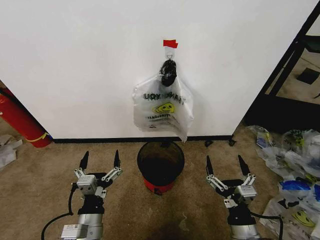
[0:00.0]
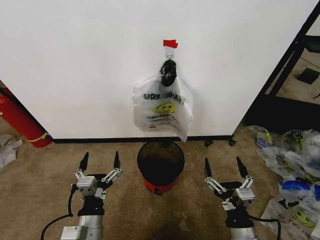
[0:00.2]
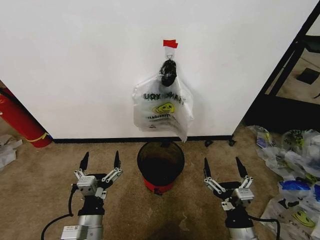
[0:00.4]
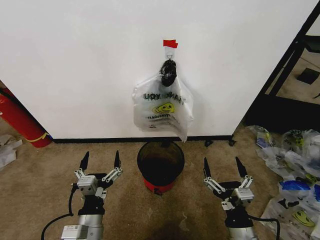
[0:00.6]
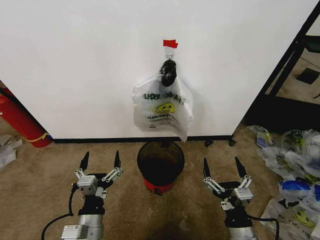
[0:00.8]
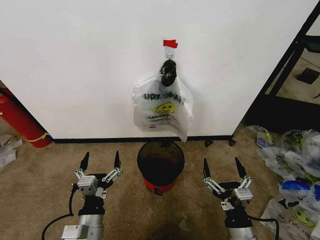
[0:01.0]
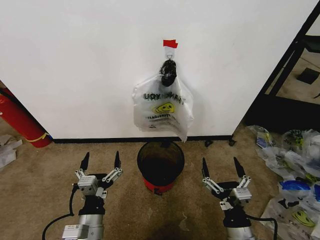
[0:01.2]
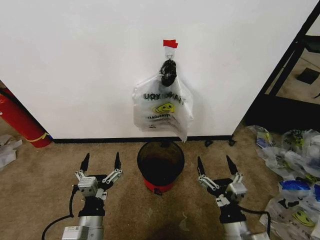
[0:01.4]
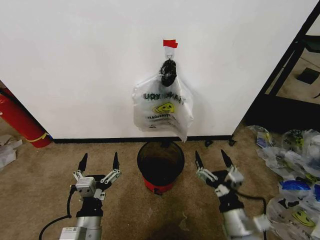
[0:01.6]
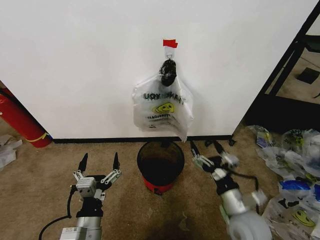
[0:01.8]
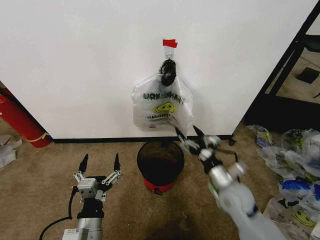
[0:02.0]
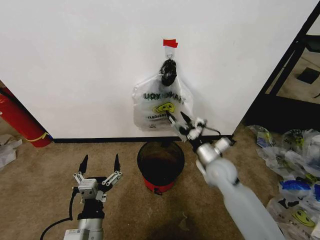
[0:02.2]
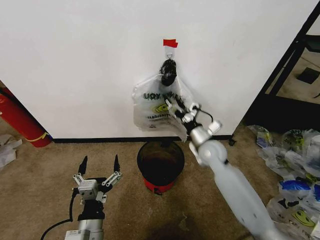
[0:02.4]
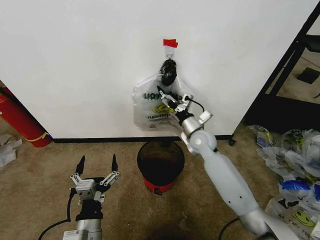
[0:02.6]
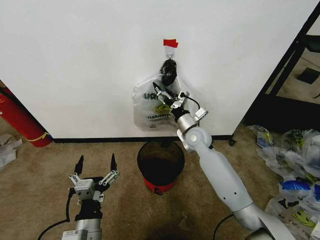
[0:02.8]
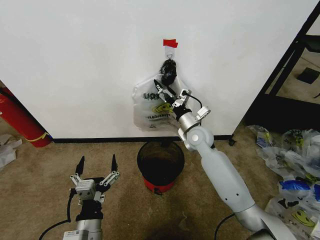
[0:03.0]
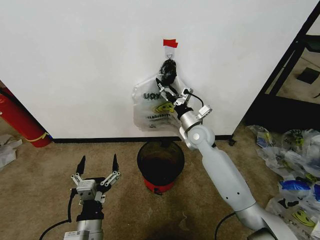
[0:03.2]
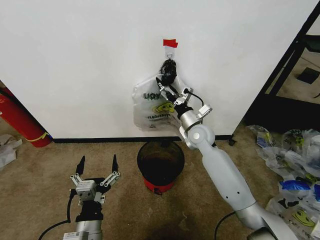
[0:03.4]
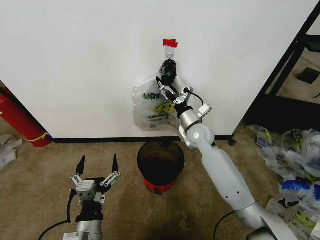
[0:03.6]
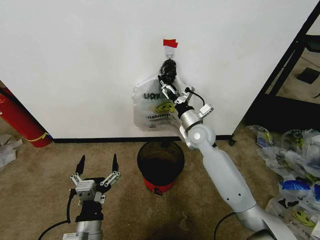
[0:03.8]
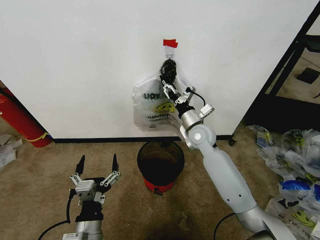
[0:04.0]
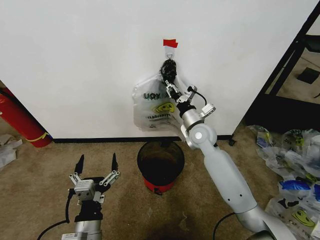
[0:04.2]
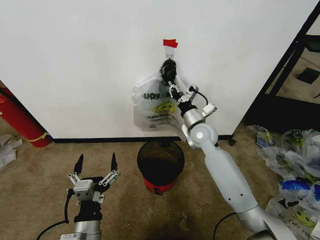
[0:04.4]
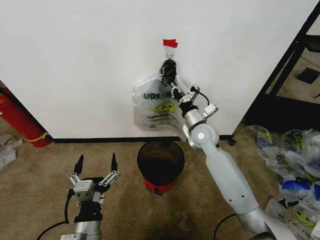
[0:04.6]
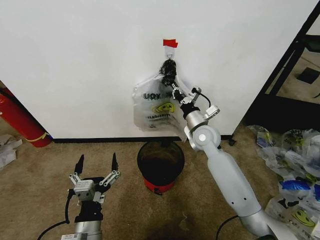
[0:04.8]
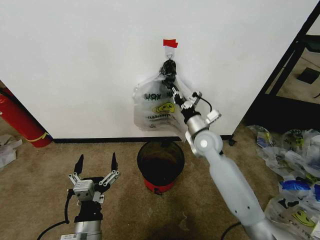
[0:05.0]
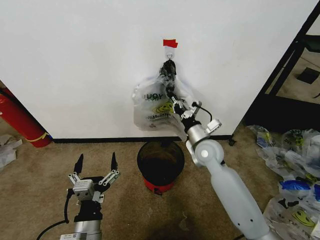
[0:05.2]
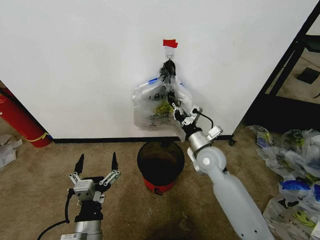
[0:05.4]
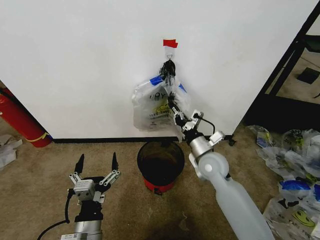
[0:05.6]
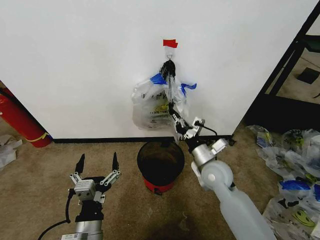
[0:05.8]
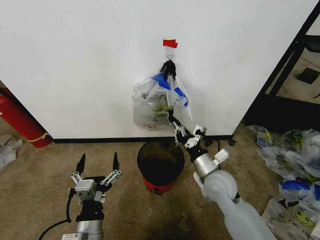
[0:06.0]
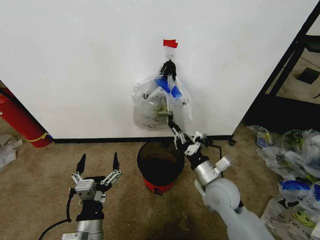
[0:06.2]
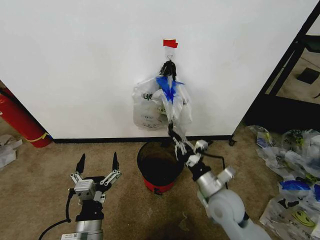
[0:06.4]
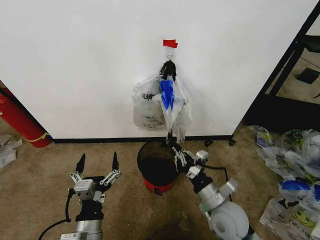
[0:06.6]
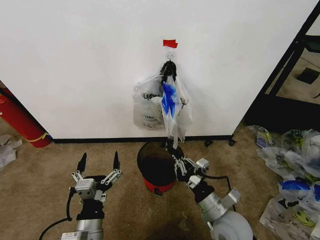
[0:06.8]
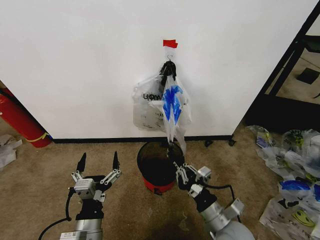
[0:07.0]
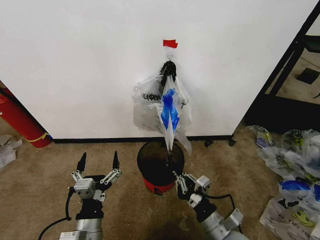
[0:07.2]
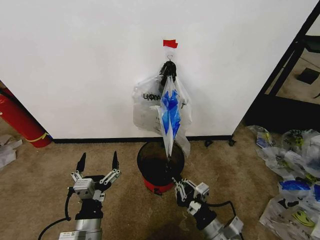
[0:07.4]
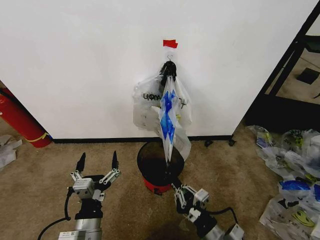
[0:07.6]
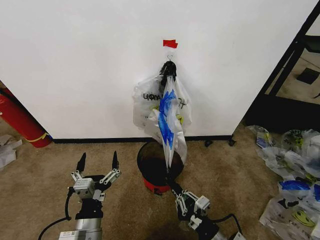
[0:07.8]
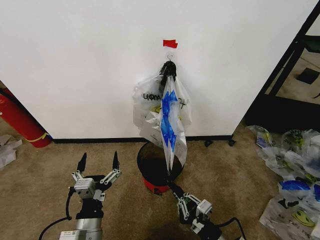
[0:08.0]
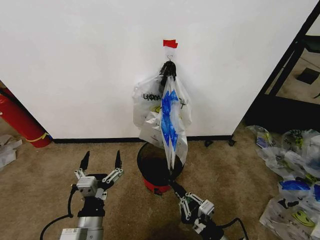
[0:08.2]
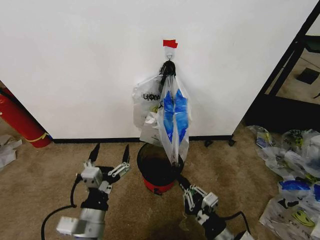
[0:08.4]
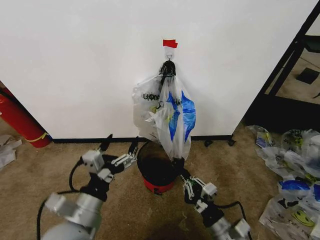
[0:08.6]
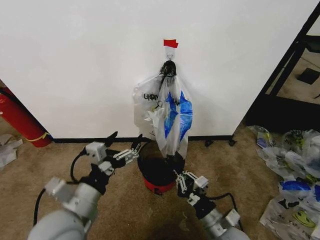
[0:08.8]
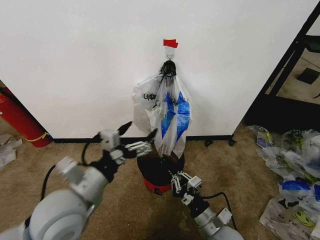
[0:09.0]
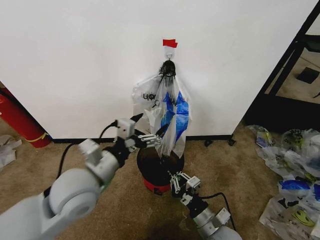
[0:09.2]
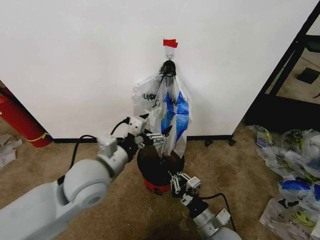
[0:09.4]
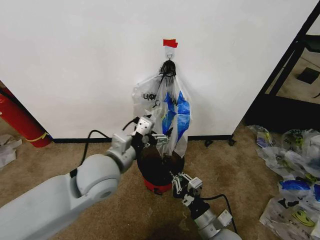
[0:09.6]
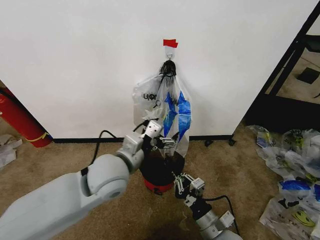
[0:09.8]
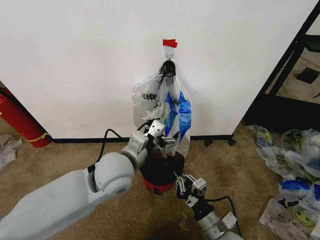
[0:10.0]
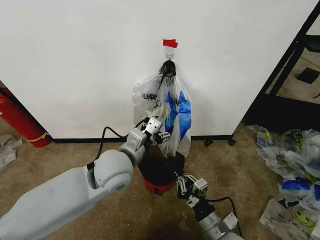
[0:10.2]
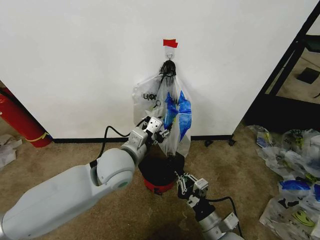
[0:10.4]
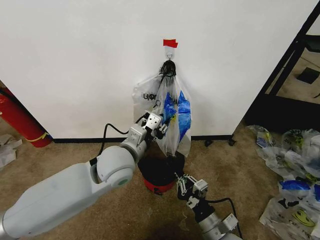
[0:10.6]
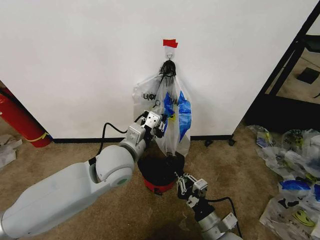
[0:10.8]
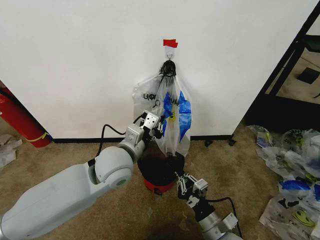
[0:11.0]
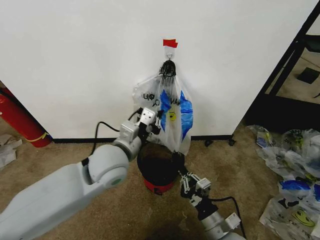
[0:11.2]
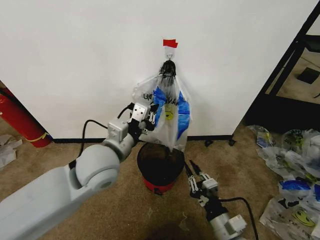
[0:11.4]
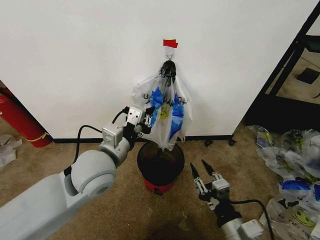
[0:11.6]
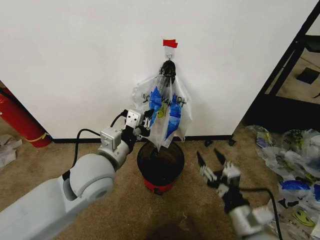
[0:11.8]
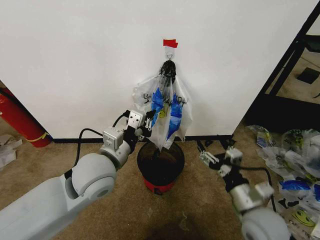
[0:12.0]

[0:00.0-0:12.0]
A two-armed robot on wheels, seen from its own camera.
Task of the whole recording: Pick up the garbage bag from the wall and place it over the trash bin.
0:01.6 to 0:03.0: The right gripper moves forward, roughly 35 cm.
0:03.0 to 0:04.4: The right gripper closes up.
0:04.4 to 0:06.0: The right gripper travels backward by some 15 cm.
0:06.0 to 0:07.6: The right gripper goes some 20 cm backward.
0:07.6 to 0:09.0: The left gripper is displaced upward and forward by roughly 15 cm. Meanwhile the right gripper ends up about 5 cm from where it was.
0:09.0 to 0:10.4: The left gripper shifts some 15 cm forward and to the right, and closes its fingers.
0:10.4 to 0:12.0: The left gripper ends up about 5 cm from where it was, and closes up. Meanwhile the right gripper travels upward and to the right by approximately 10 cm, and opens.

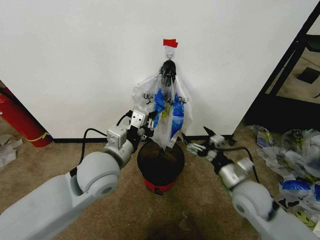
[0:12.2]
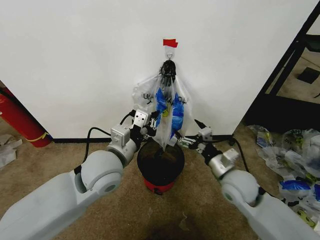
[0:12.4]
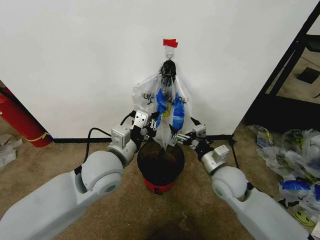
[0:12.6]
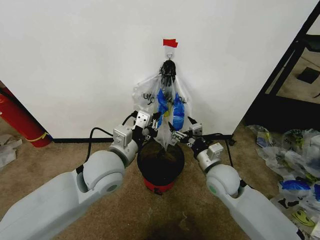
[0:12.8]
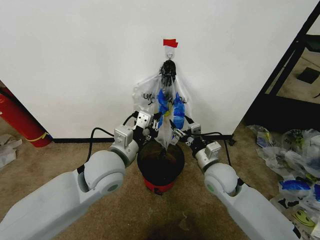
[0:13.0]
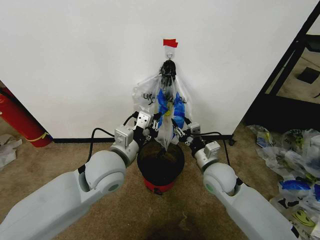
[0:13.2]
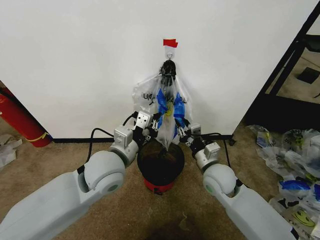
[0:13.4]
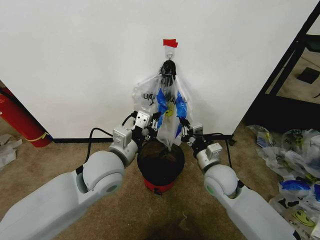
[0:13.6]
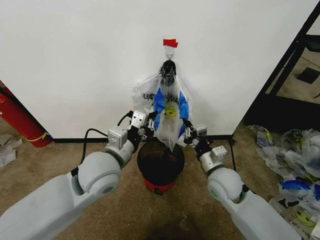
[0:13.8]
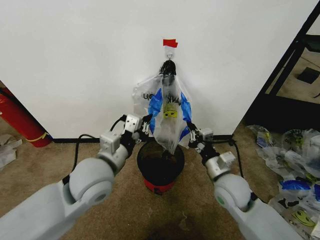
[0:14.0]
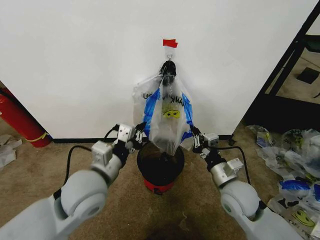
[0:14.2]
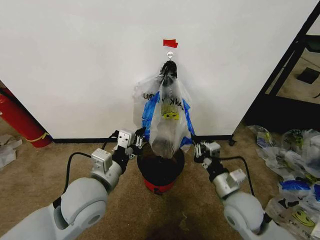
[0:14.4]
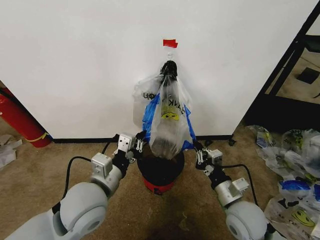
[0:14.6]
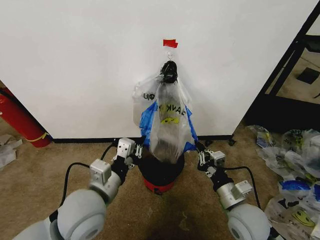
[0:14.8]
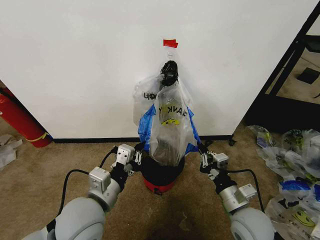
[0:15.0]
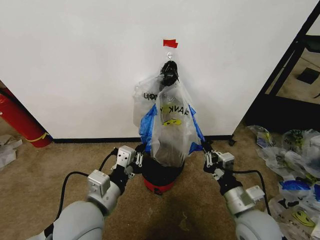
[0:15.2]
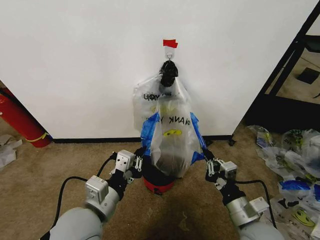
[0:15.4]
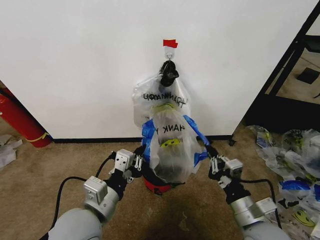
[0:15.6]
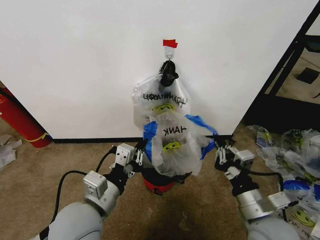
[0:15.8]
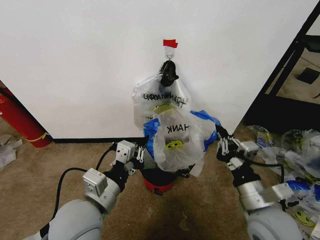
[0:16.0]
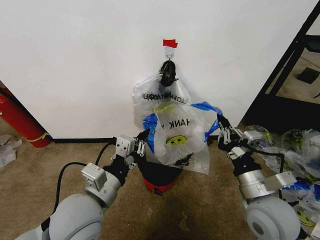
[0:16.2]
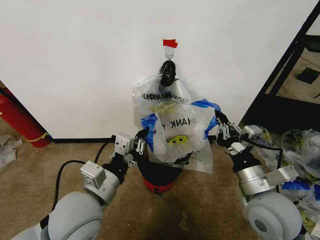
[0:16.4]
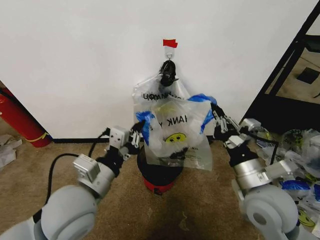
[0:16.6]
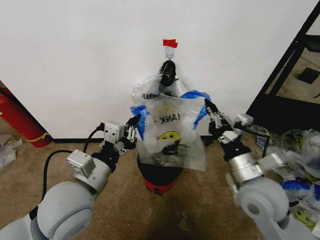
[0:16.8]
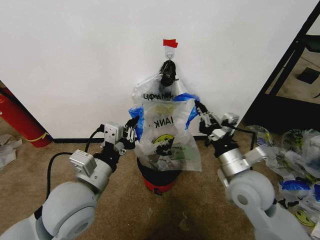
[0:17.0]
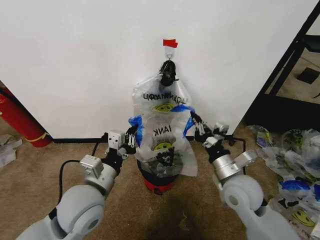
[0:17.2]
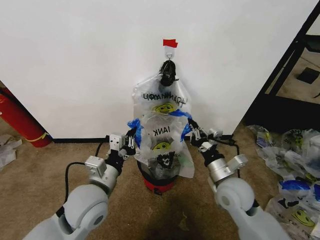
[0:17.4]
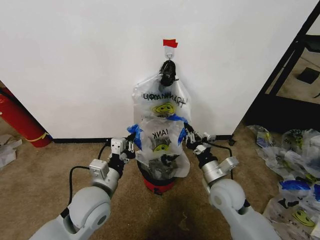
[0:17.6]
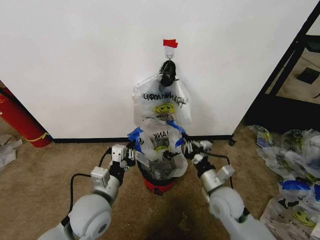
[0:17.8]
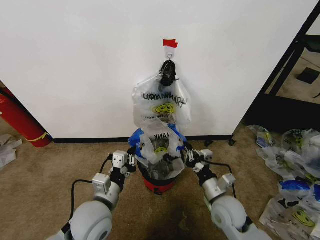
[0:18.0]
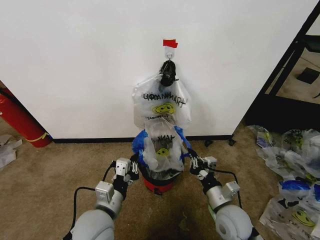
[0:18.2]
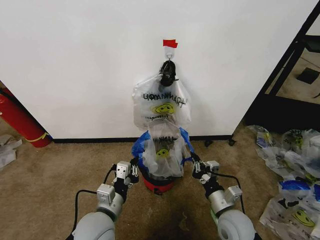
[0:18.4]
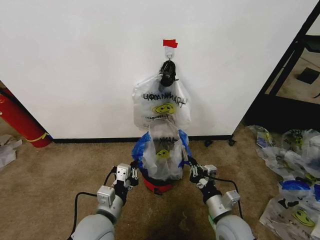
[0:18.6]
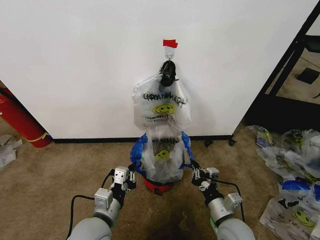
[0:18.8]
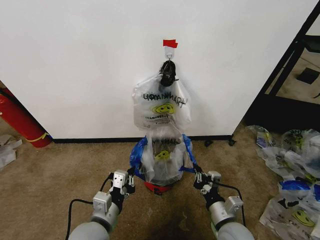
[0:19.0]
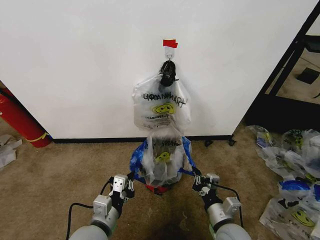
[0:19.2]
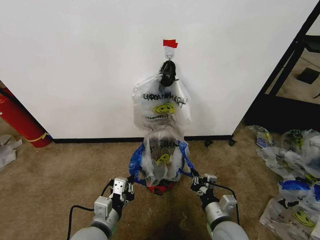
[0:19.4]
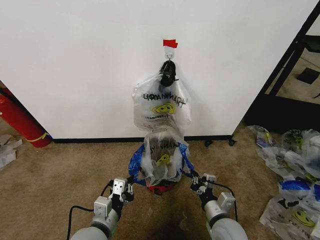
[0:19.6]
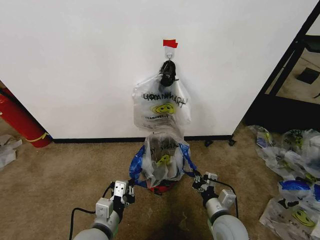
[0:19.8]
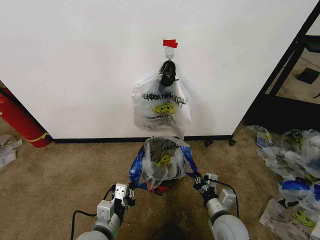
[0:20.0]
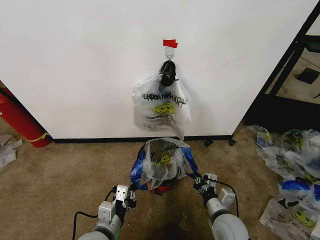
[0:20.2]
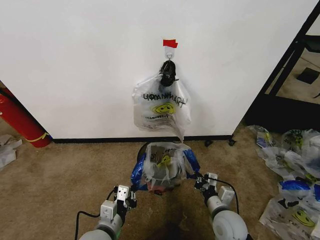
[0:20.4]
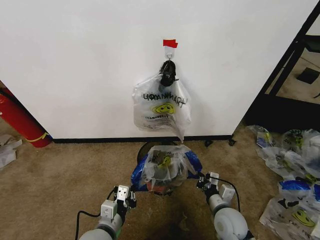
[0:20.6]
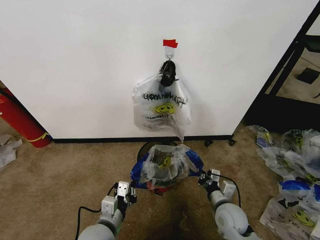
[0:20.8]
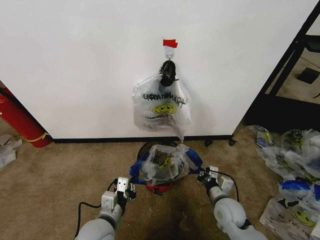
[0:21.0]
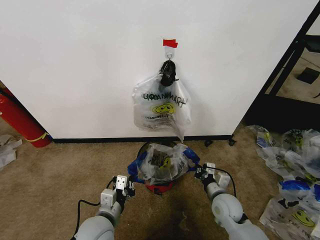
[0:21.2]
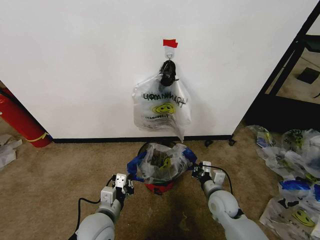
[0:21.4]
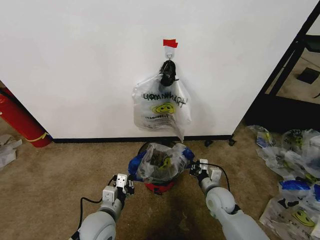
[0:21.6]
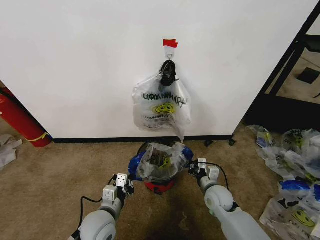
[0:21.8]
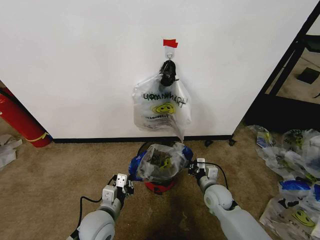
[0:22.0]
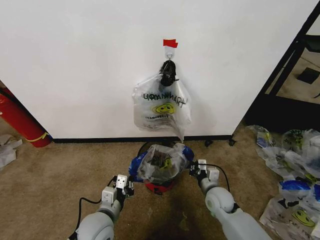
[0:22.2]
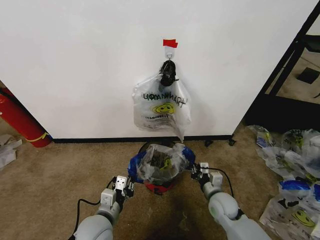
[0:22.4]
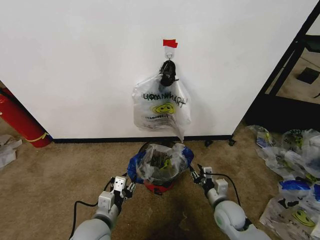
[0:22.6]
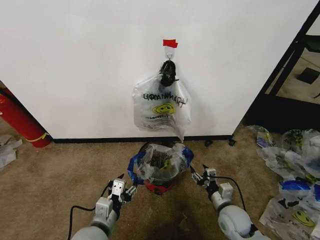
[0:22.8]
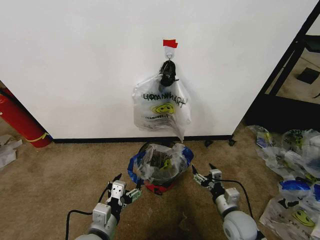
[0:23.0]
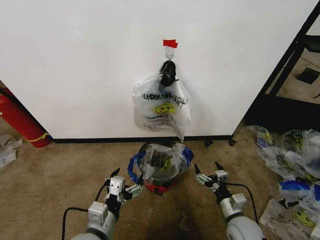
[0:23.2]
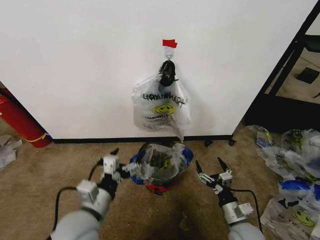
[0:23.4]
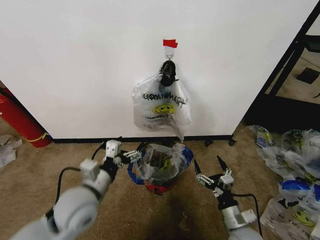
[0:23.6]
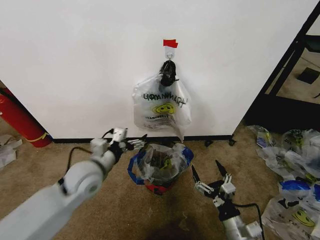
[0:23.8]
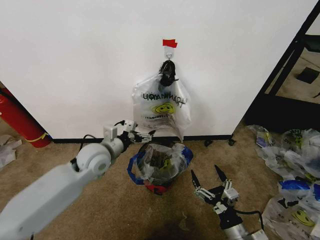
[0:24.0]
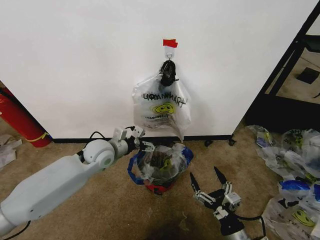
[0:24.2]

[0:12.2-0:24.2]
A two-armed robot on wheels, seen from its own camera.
Task of the whole recording: Pick up the garbage bag from the wall and place it over the trash bin.
0:12.2 to 0:13.8: The right gripper shifts about 10 cm to the left and forward, and closes.
0:13.8 to 0:15.2: The two grippers go some 10 cm backward.
0:15.2 to 0:16.6: The right gripper is displaced upward by some 10 cm.
0:16.6 to 0:18.2: The grippers both shift downward by some 15 cm.
0:19.8 to 0:21.2: The right gripper is displaced forward by about 10 cm.
0:21.2 to 0:22.6: The left gripper opens; the right gripper opens.
0:22.6 to 0:24.2: The right gripper is displaced backward by approximately 15 cm, and opens up, while the left gripper shifts roughly 25 cm forward and upward, and opens its fingers.
